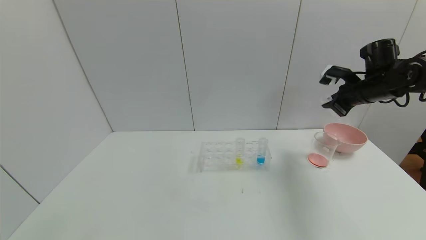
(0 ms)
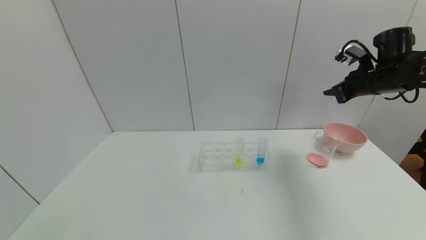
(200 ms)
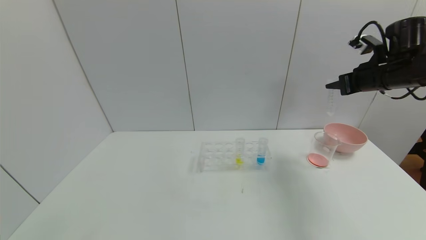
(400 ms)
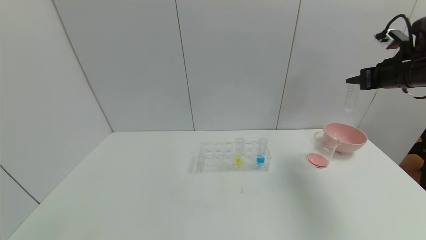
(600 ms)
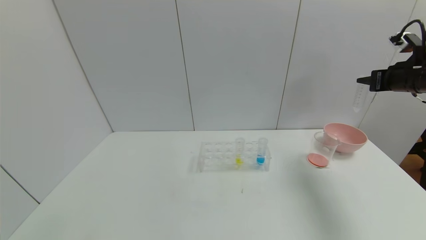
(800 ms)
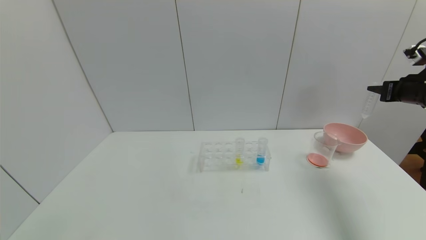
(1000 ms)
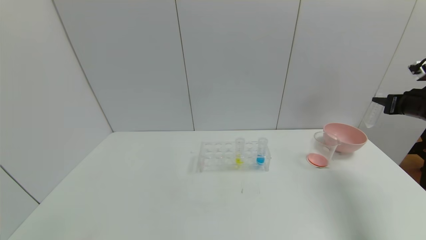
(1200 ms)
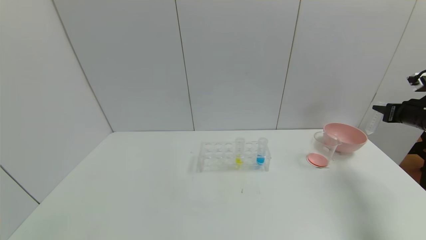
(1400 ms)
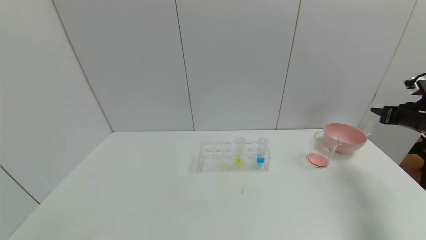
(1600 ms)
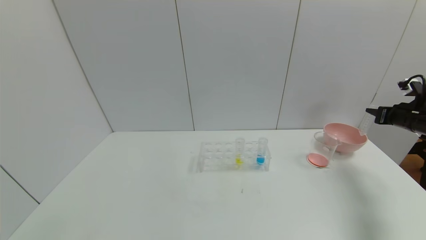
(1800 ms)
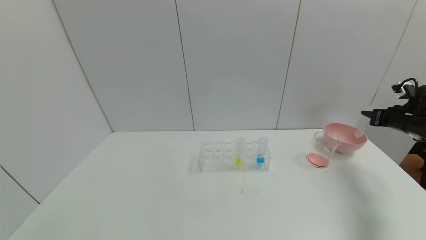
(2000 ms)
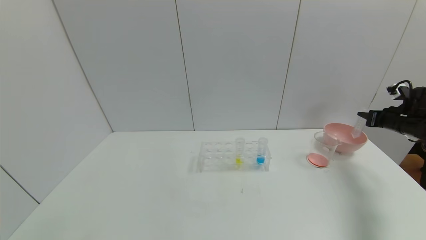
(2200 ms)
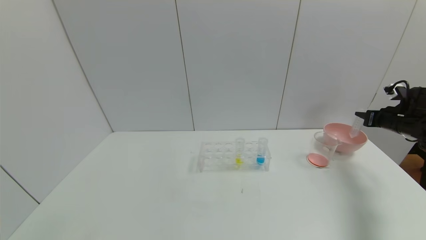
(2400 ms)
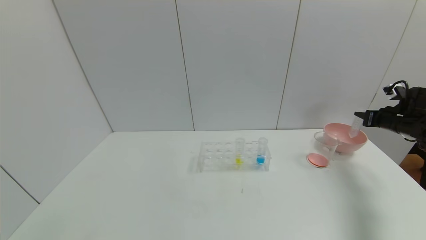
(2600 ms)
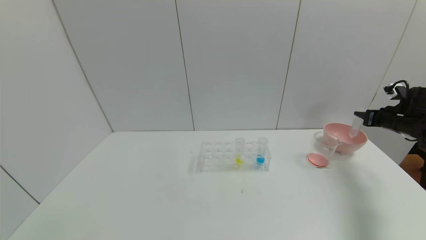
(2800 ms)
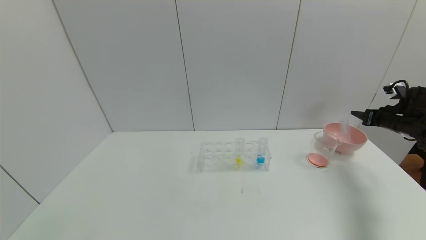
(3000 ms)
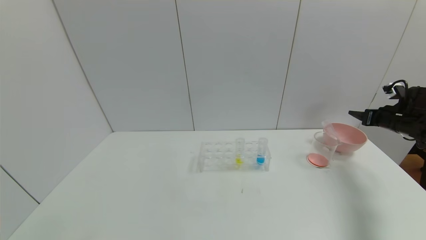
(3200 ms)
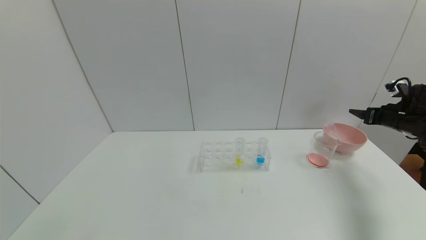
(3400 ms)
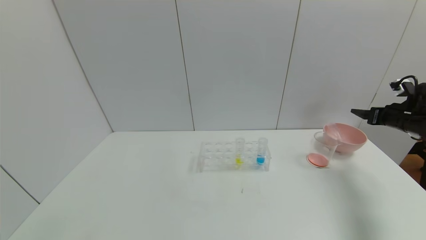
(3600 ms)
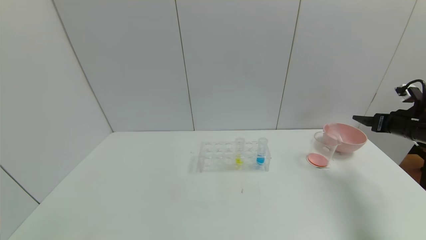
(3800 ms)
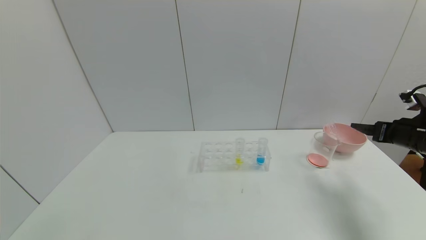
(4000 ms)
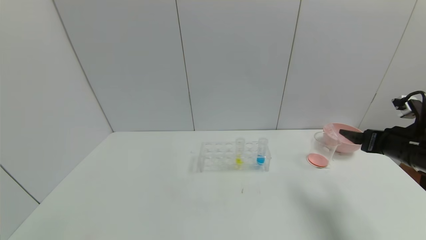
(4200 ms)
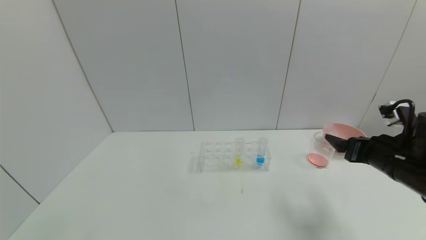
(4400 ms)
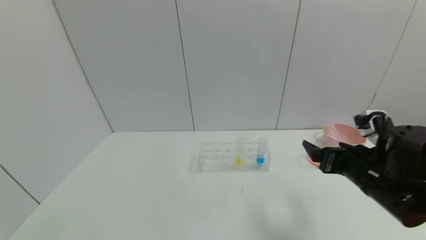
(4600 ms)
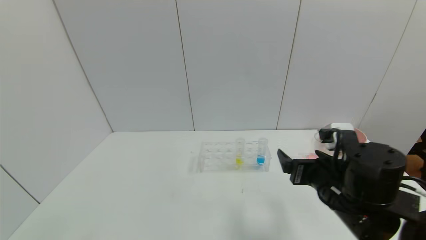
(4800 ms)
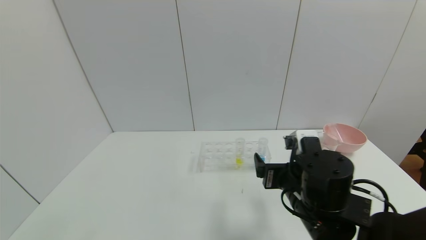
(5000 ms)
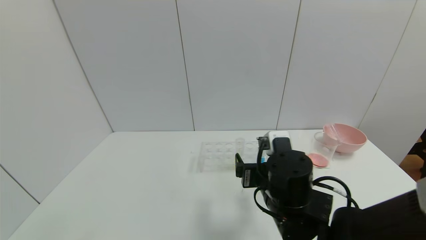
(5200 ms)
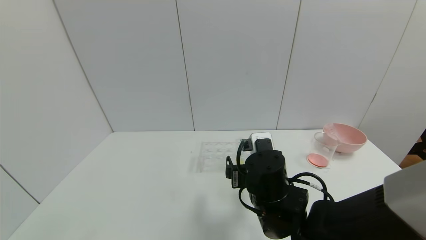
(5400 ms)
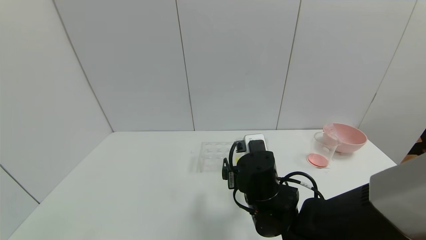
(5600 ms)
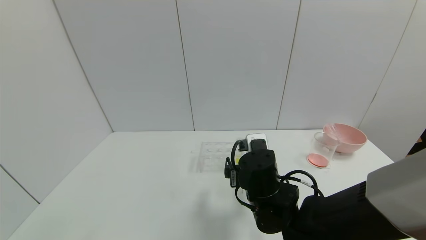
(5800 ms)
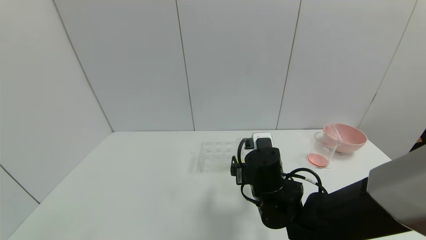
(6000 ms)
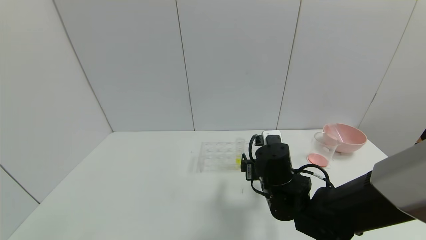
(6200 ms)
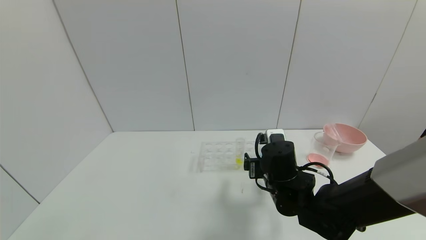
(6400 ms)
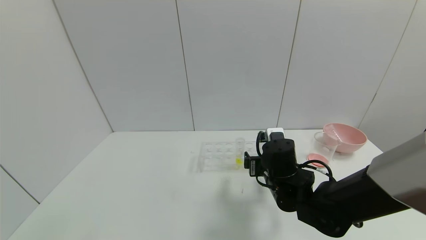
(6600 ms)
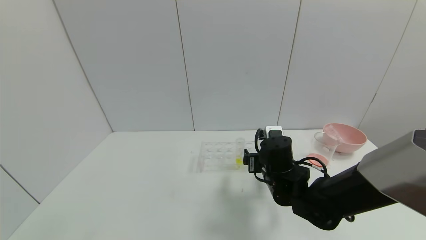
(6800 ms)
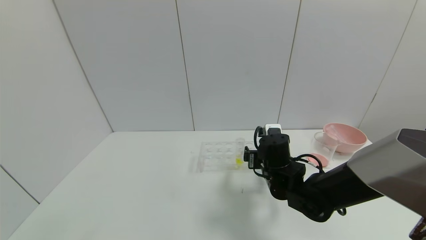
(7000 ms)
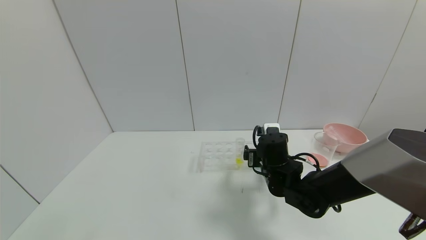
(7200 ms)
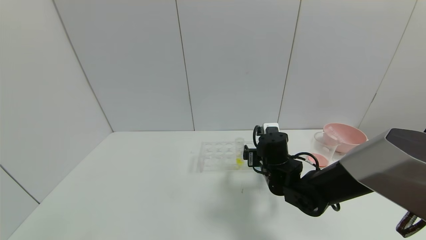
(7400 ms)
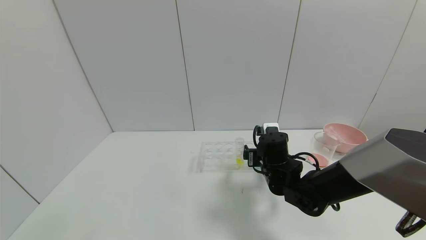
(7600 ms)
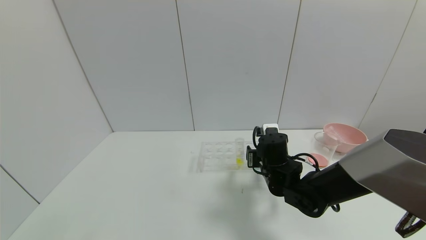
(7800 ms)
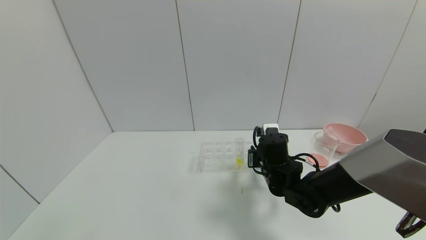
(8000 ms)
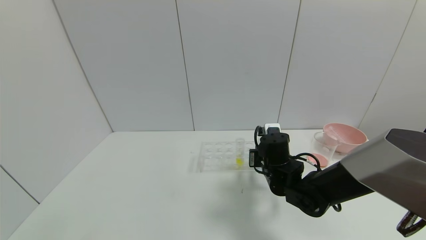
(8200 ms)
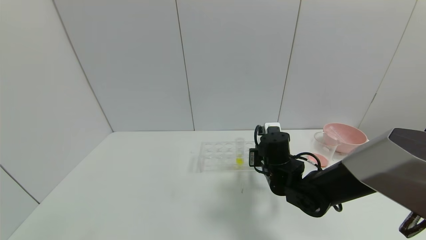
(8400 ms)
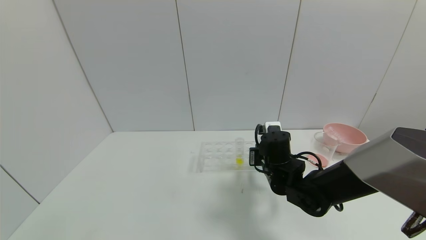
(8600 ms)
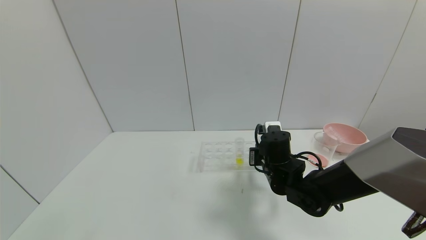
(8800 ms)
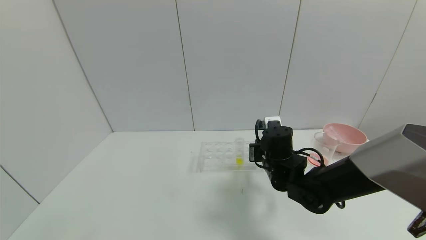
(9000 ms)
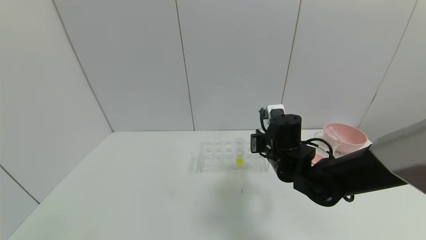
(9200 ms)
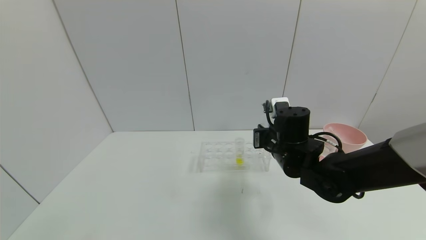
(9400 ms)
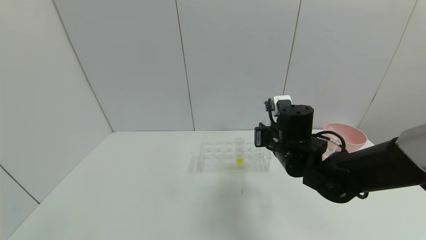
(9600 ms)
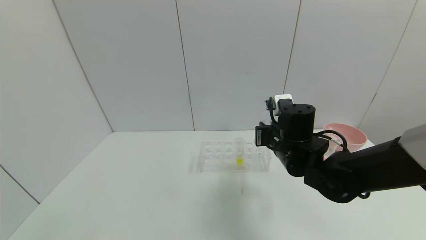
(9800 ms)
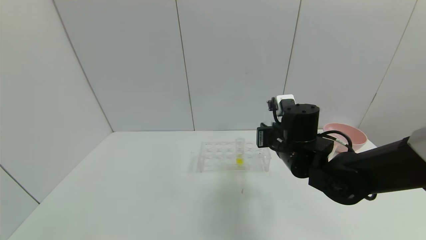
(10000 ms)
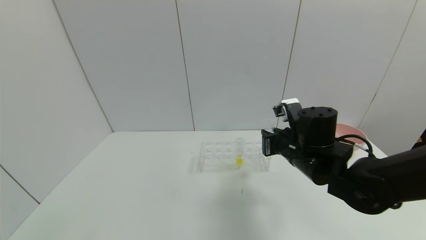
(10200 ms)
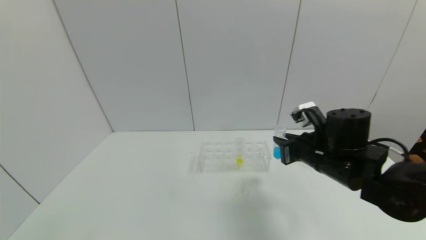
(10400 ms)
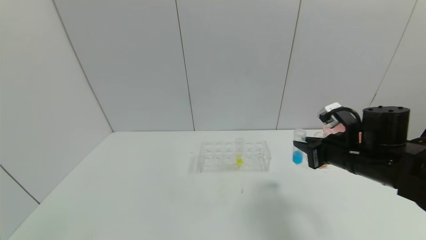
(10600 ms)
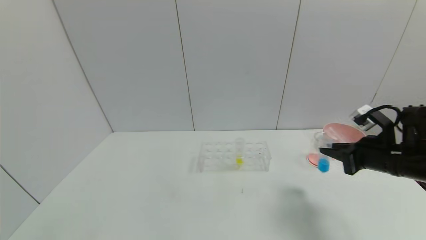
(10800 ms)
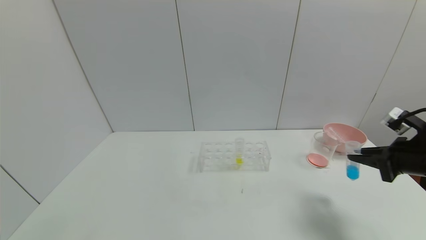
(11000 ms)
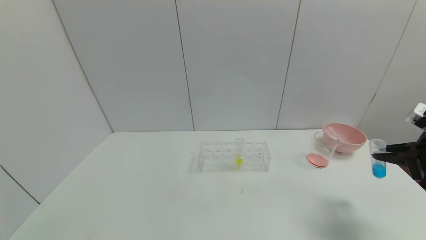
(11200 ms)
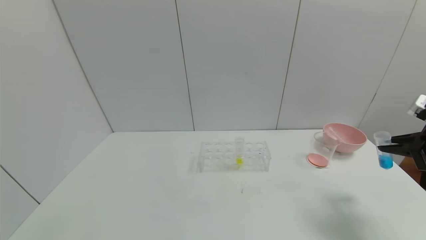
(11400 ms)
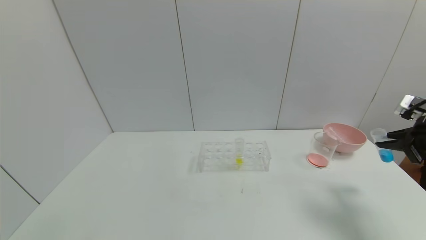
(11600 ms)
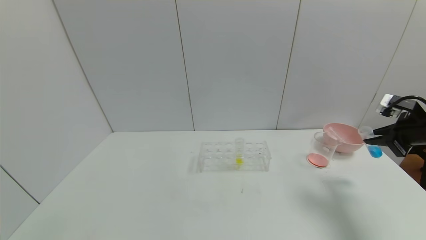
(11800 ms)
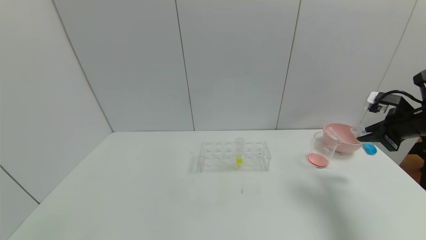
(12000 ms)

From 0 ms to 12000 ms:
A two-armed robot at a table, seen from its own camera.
Task of the whole recording: pick up the test tube with red pigment and the test tube with blue pigment by grippers and pour them into the container.
Step, from 0 ms to 3400 ms: Place the test tube into the bowl with the right gripper.
Step, from 3600 ms to 8400 ms: Grasp the blue reagent with the right gripper.
From 0 ms to 1600 ms: The right gripper is displaced to the right and downward by about 15 cm.
From 1600 ms to 3000 ms: The right gripper opens up.
From 3000 ms to 4400 ms: The right gripper moves to the left and backward, roughly 25 cm, and opens its fingers.
From 4400 ms to 6000 ms: The right gripper goes roughly 20 cm to the left.
From 6000 ms to 7600 ms: The right gripper shifts approximately 5 cm forward.
From 7600 ms to 9000 ms: The right gripper closes.
From 9000 ms to 10400 ms: The right gripper goes approximately 10 cm to the right and upward.
From 10400 ms to 12000 ms: The right gripper is displaced to the right by about 20 cm.

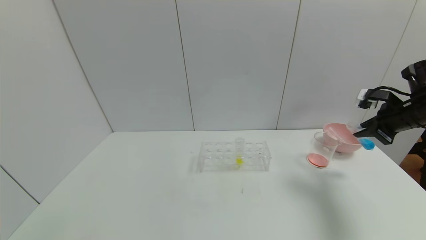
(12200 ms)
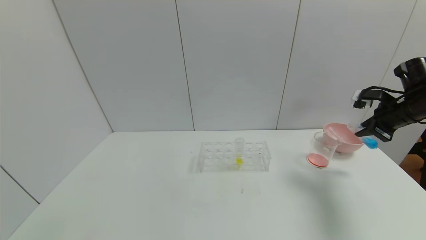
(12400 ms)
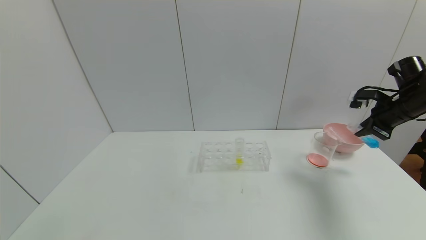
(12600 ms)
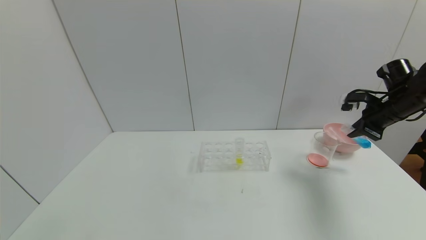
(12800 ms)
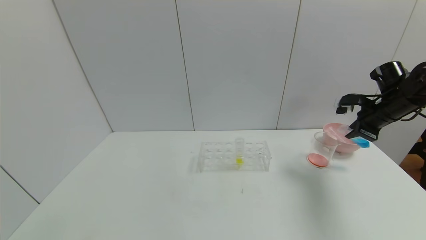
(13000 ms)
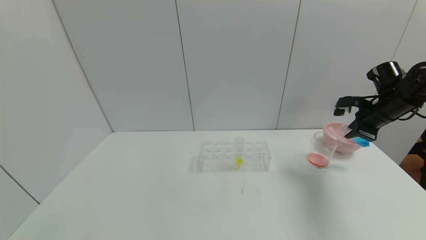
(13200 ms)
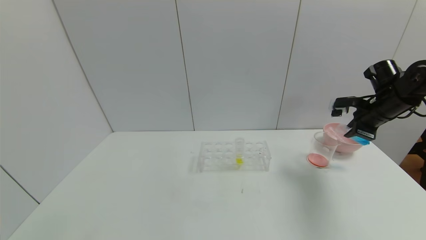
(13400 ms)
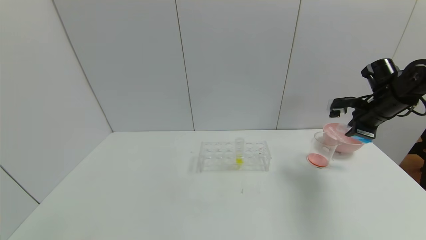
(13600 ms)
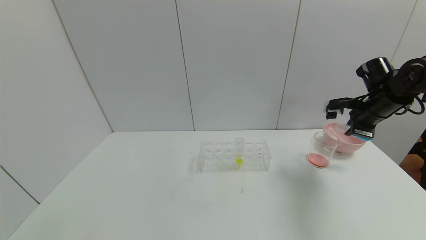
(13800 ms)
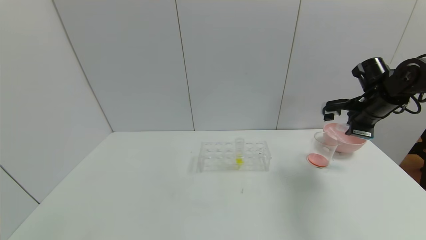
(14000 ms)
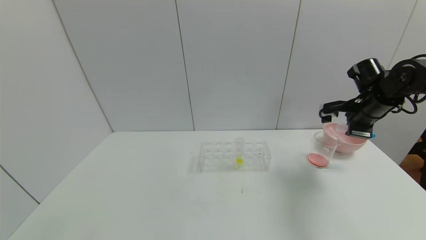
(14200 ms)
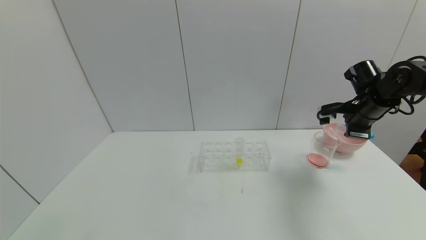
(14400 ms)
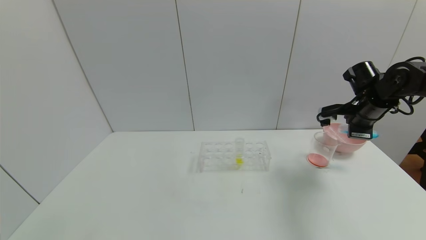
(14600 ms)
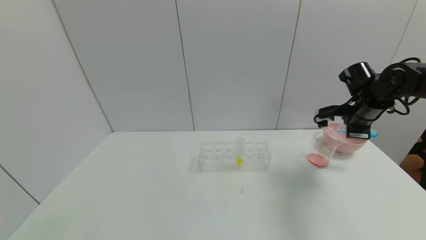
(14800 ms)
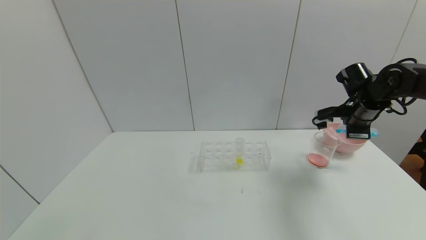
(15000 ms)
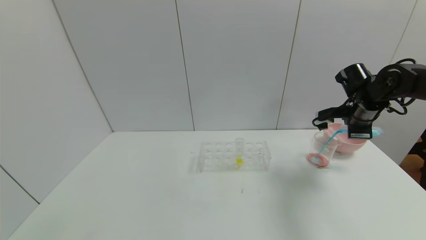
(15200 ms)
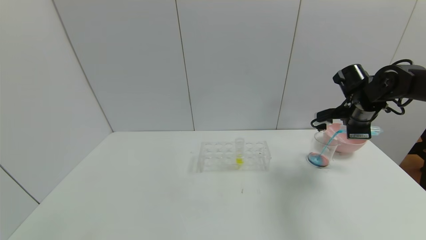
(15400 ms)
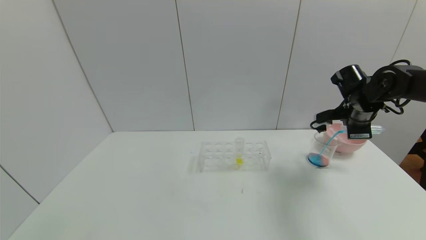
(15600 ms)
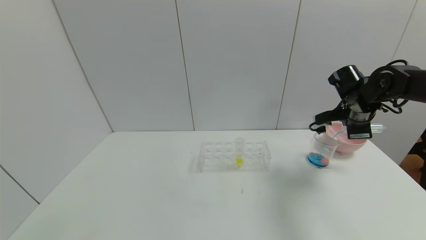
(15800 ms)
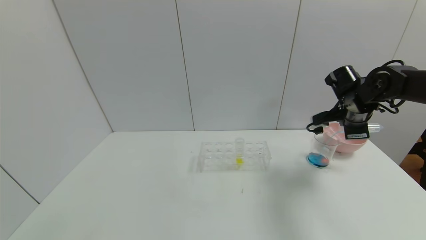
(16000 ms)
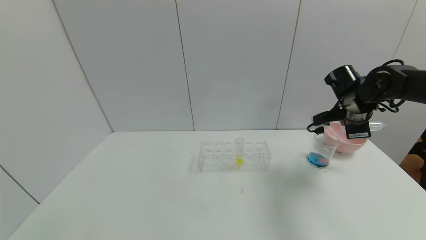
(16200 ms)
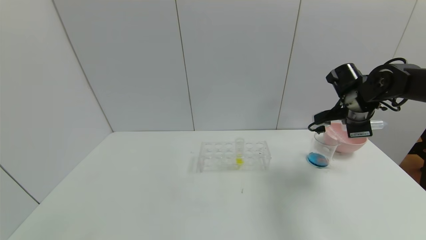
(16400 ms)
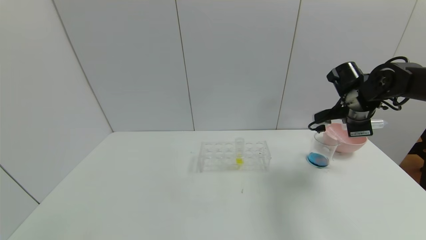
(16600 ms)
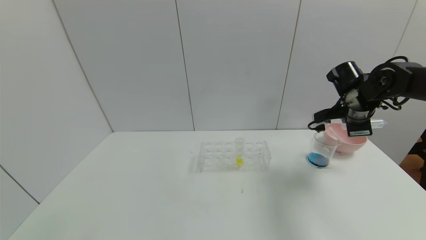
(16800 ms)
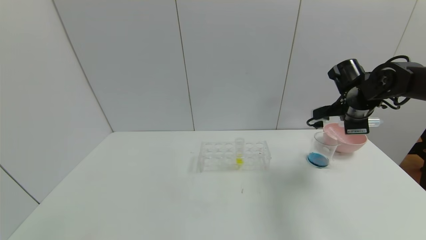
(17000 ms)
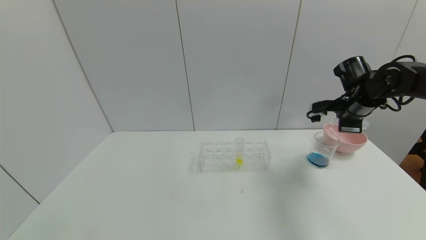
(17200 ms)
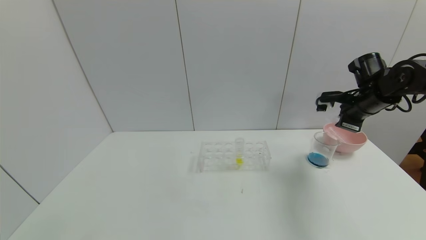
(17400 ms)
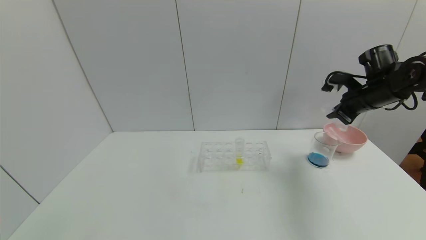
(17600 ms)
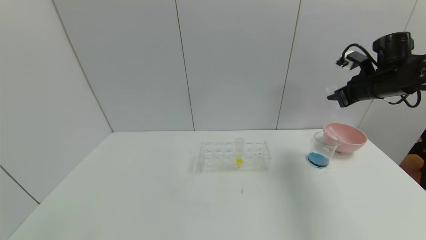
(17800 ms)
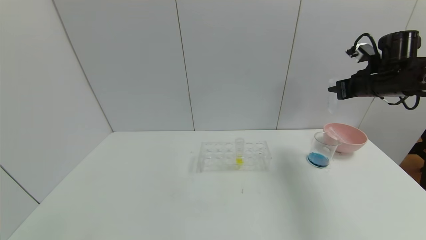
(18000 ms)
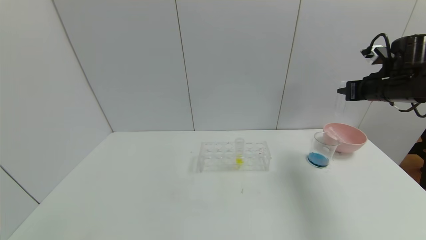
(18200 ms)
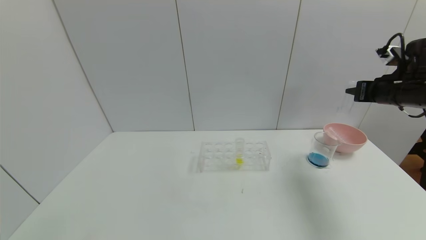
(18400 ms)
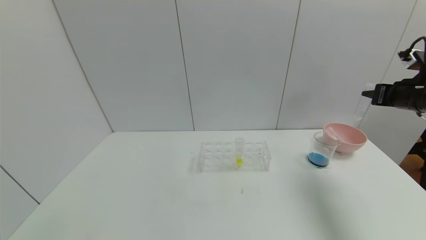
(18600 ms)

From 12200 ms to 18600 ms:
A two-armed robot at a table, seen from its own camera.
Task of the whole recording: pick up the test tube with red pigment and the test tube with blue pigment by grippers and pour them into the container.
Step, from 12200 ms to 16800 ms: Pour the blue reagent into the graduated cylinder with the right gripper.
From 12200 ms to 13800 ms: The right gripper travels to the left by about 5 cm.
From 15400 ms to 17000 ms: The grippers stay close to where they were, moving slightly.
From 17000 ms to 18600 ms: The right gripper goes roughly 10 cm to the right and backward.
